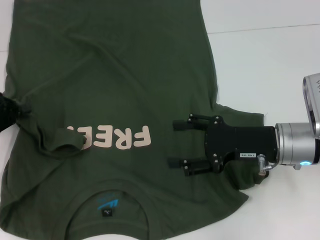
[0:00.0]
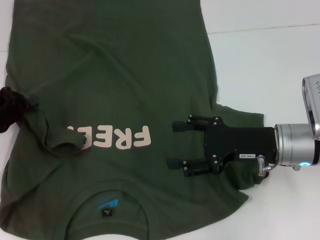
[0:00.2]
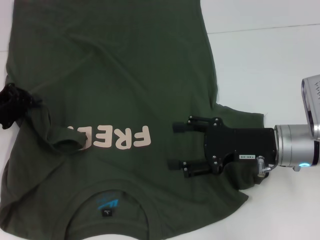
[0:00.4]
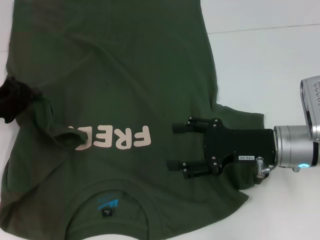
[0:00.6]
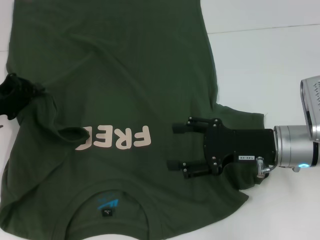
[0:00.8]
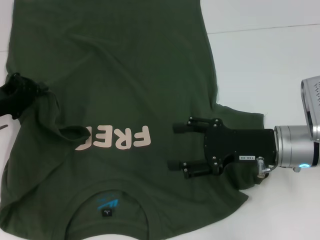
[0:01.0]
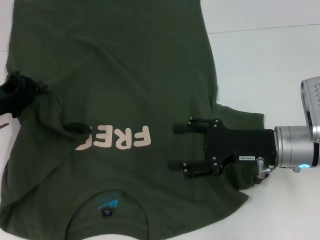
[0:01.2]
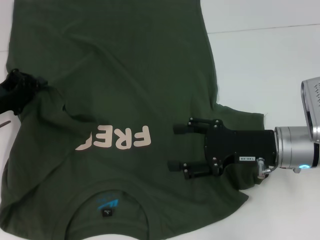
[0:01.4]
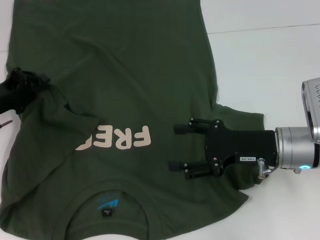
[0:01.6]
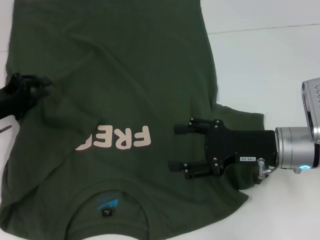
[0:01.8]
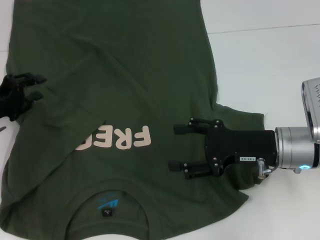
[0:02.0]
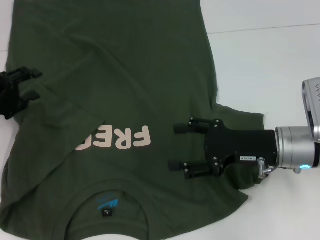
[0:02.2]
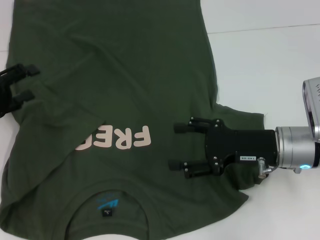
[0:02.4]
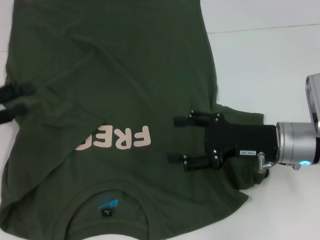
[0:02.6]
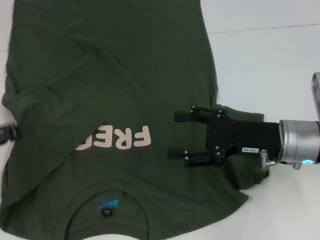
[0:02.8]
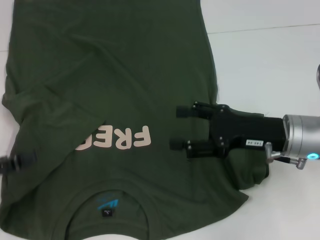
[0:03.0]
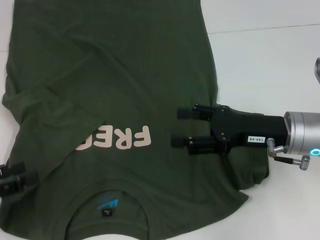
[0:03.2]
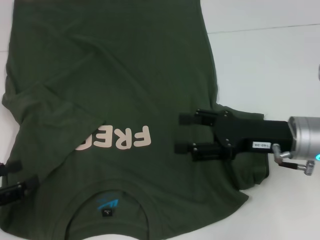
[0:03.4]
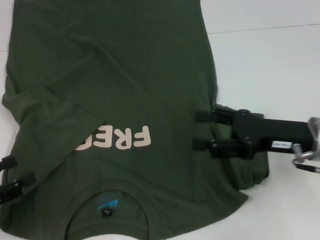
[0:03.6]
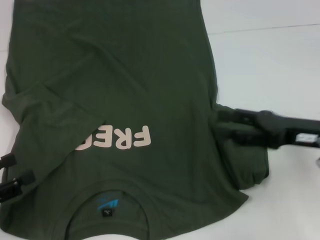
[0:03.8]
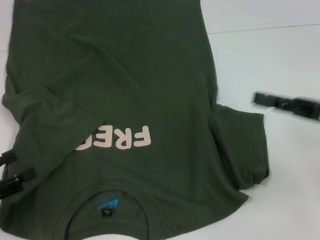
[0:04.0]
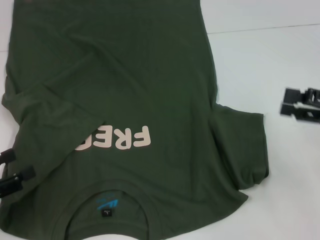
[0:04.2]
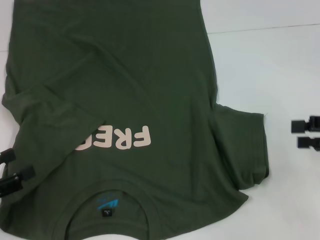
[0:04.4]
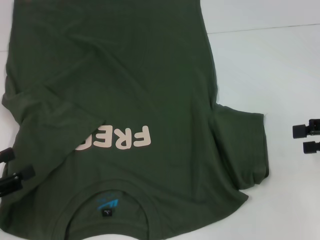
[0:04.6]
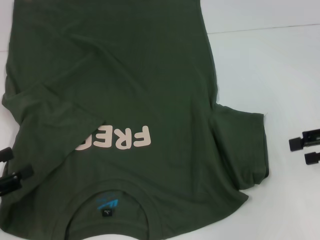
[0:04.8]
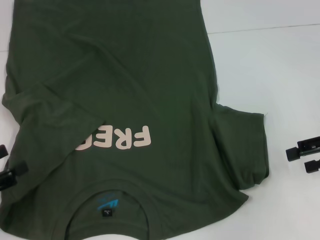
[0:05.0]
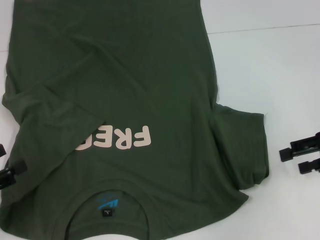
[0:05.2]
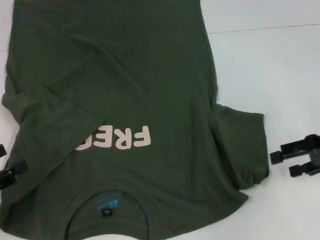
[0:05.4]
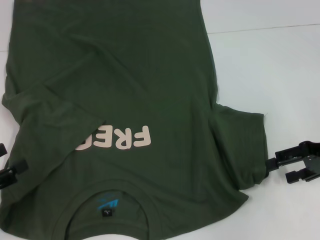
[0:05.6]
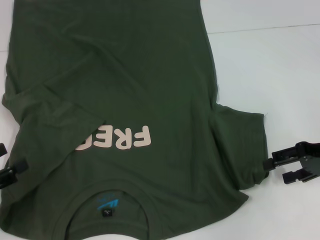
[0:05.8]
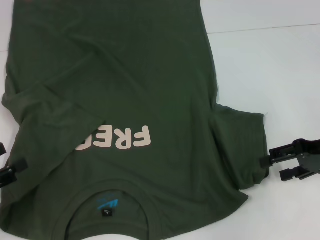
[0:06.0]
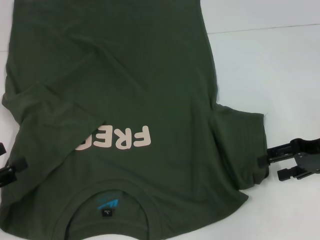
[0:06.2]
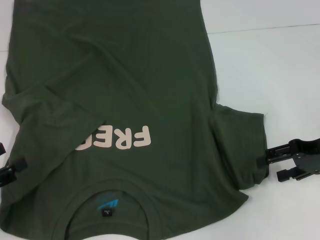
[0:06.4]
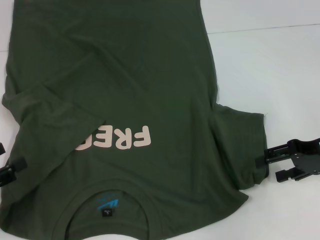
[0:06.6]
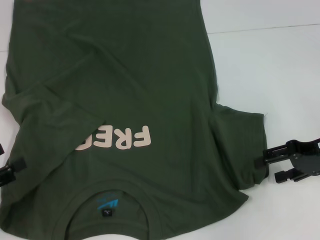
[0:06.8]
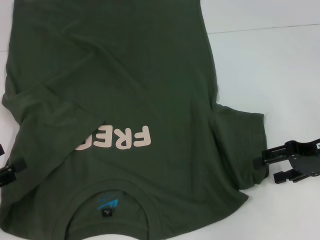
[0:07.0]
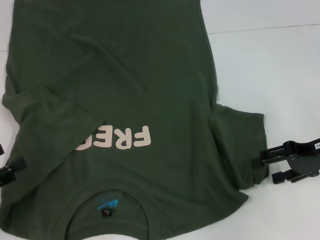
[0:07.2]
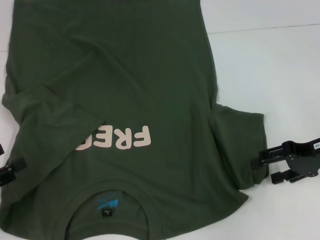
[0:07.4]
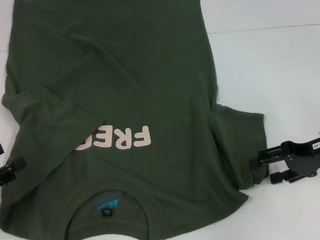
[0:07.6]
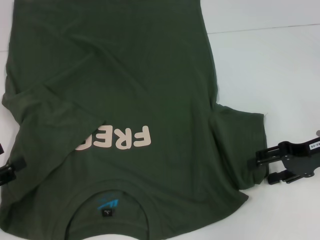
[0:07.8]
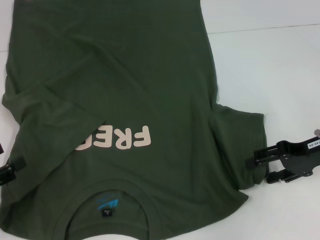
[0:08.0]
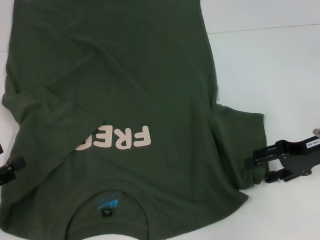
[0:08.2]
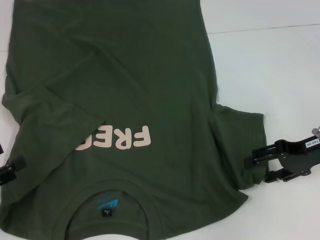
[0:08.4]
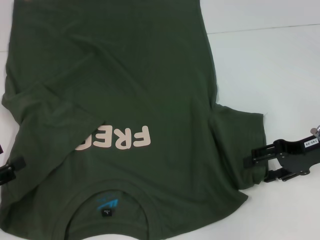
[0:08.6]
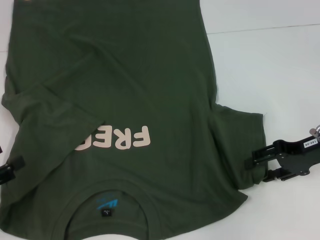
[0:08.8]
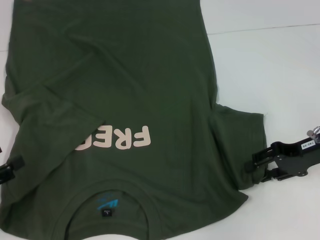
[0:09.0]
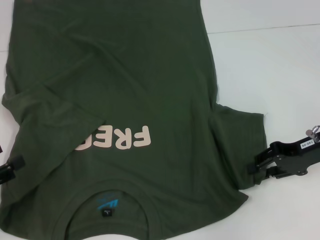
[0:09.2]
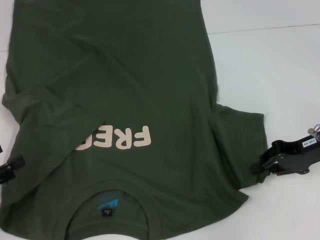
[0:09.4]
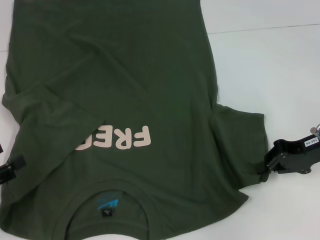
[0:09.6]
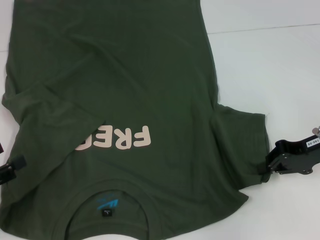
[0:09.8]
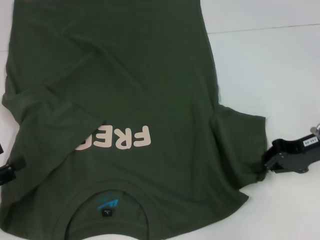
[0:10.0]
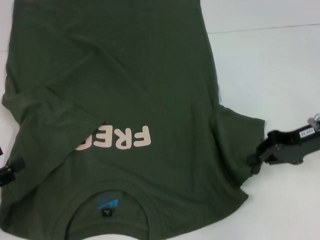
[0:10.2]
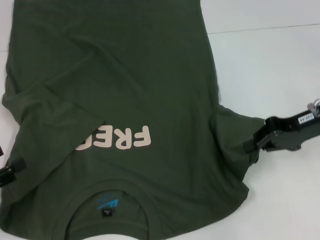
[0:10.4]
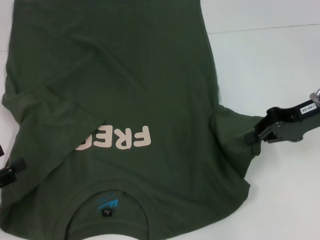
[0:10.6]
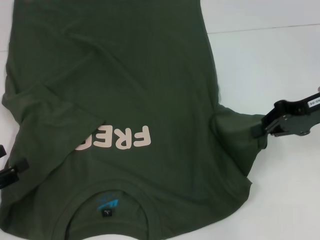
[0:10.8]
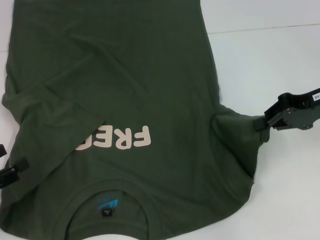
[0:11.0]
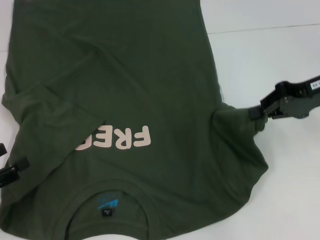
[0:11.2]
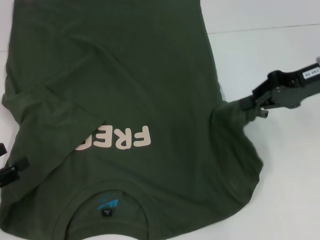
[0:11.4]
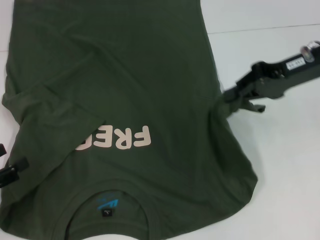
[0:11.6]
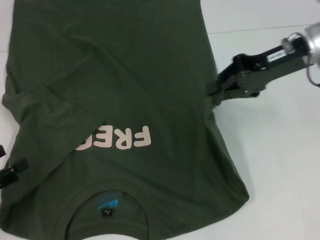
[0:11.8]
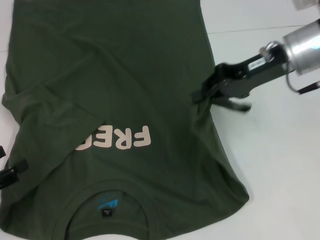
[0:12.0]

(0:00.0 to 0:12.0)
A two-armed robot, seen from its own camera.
0:00.0 - 0:01.6: The grippers move only a little.
0:01.6 - 0:03.0: The left gripper goes about 15 cm backward and to the left, and opens.
0:03.0 - 0:04.4: The right gripper travels to the right by approximately 15 cm.
0:04.4 - 0:06.0: The right gripper ends up about 5 cm from where it was.
0:06.0 - 0:09.0: The grippers move only a little.
0:09.0 - 0:10.4: The right gripper closes its fingers.
0:10.4 - 0:12.0: The right gripper moves to the left, upward and forward, some 10 cm.

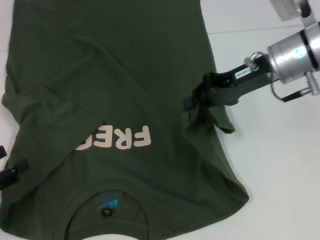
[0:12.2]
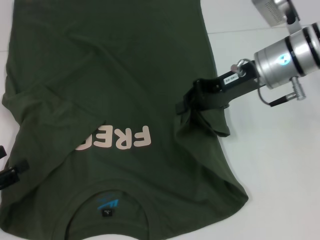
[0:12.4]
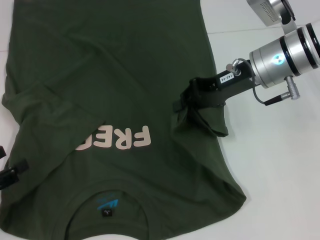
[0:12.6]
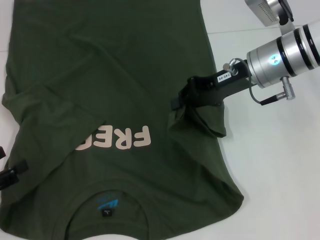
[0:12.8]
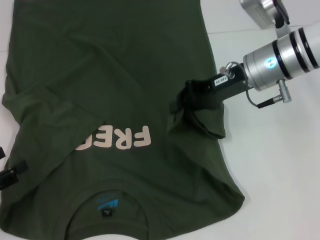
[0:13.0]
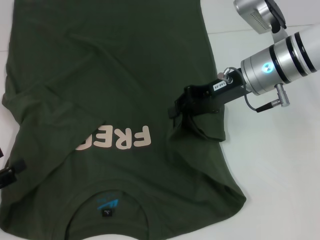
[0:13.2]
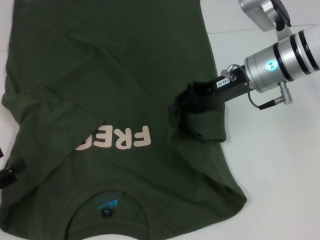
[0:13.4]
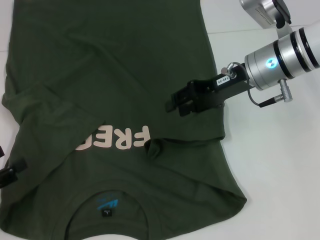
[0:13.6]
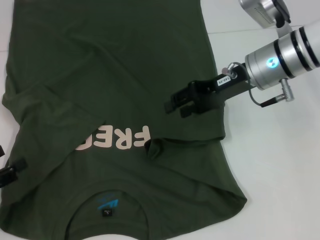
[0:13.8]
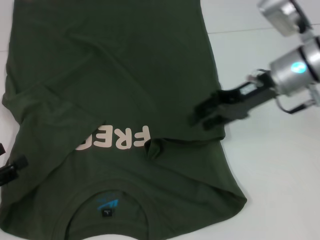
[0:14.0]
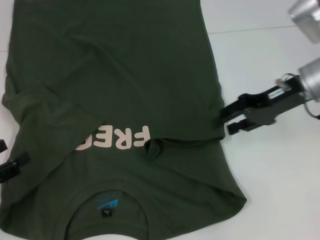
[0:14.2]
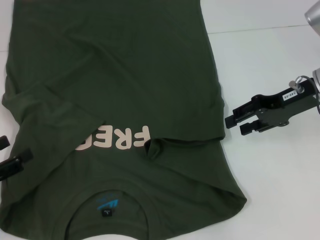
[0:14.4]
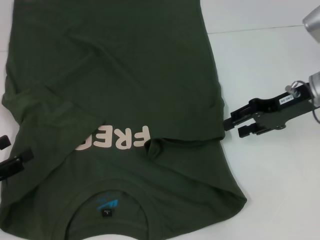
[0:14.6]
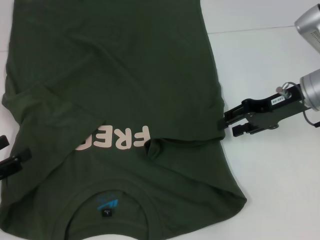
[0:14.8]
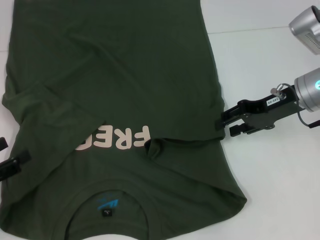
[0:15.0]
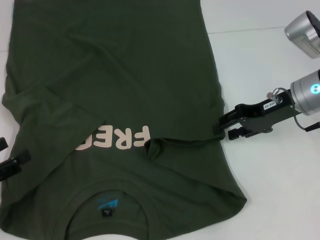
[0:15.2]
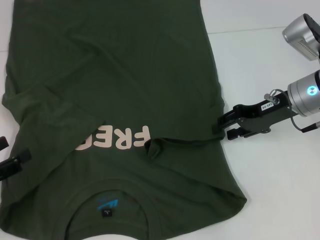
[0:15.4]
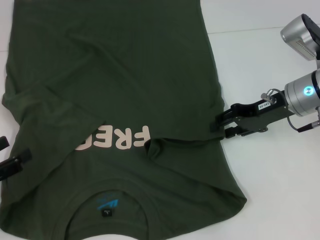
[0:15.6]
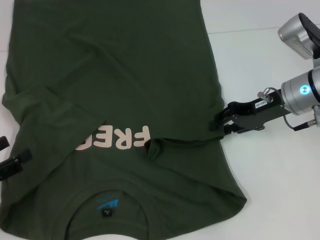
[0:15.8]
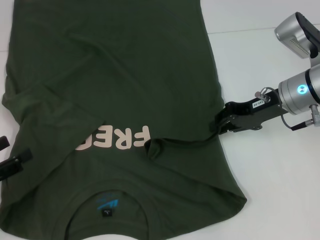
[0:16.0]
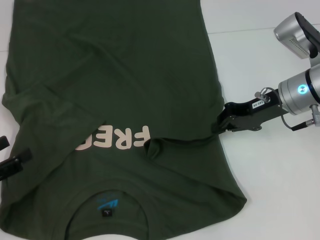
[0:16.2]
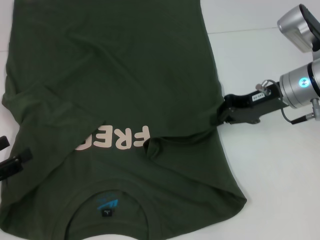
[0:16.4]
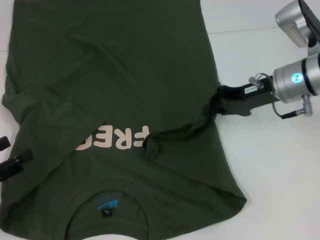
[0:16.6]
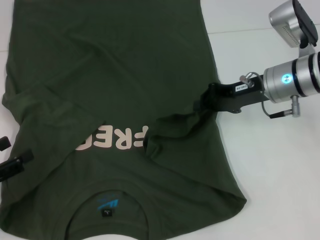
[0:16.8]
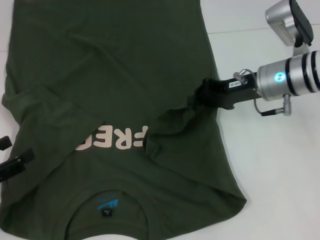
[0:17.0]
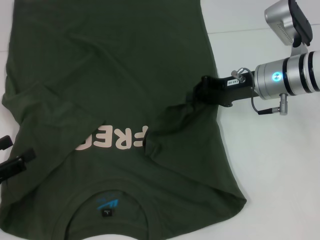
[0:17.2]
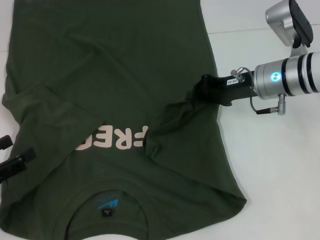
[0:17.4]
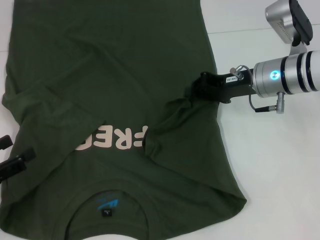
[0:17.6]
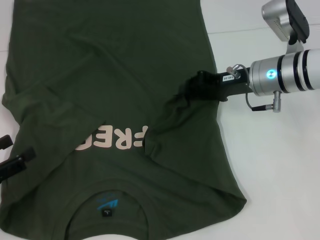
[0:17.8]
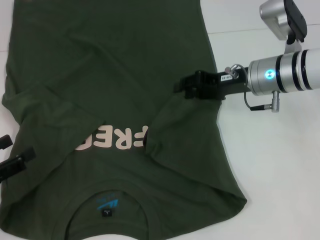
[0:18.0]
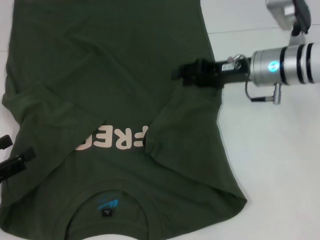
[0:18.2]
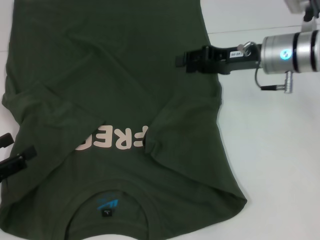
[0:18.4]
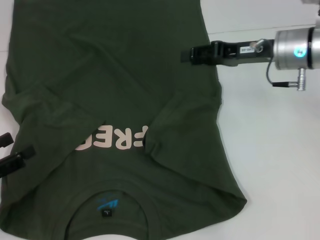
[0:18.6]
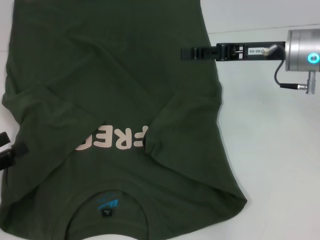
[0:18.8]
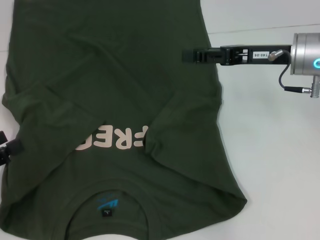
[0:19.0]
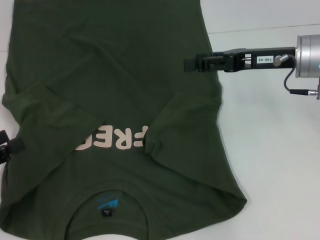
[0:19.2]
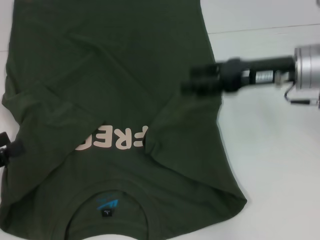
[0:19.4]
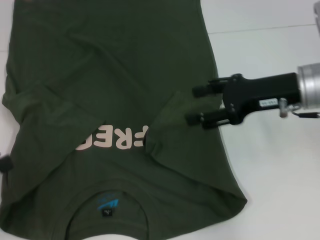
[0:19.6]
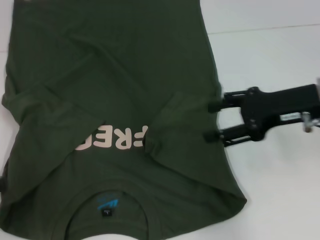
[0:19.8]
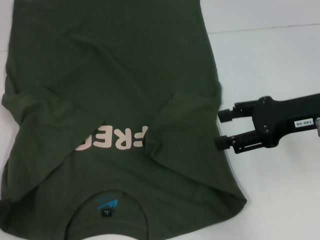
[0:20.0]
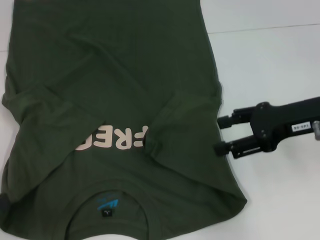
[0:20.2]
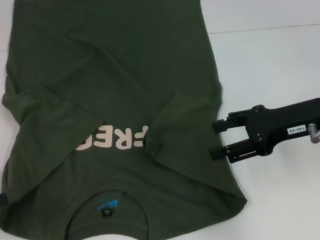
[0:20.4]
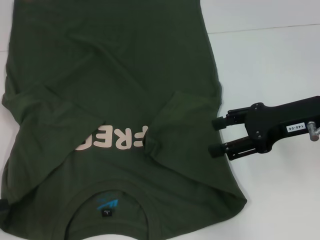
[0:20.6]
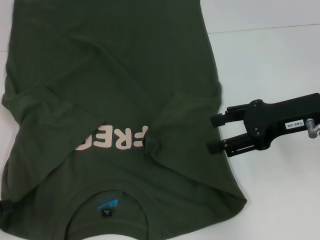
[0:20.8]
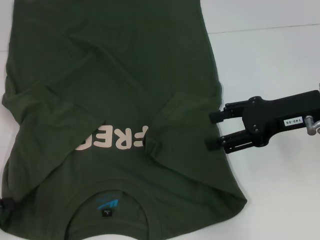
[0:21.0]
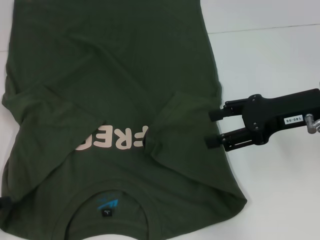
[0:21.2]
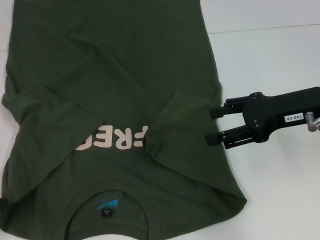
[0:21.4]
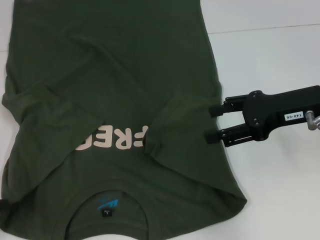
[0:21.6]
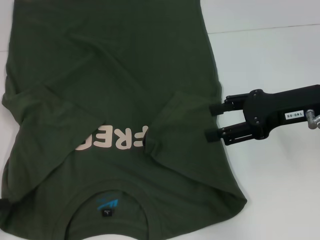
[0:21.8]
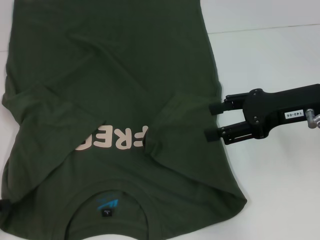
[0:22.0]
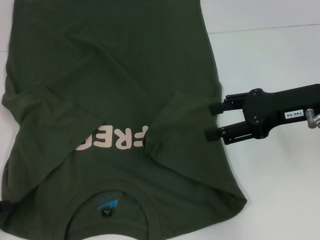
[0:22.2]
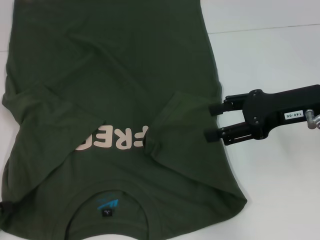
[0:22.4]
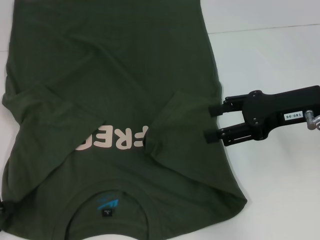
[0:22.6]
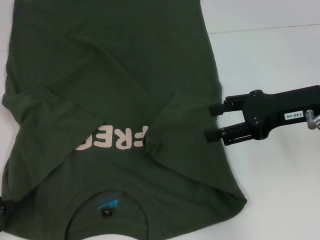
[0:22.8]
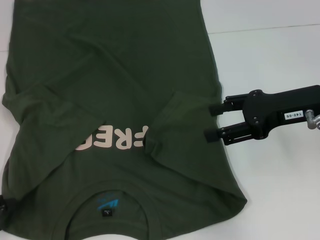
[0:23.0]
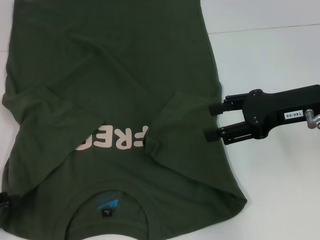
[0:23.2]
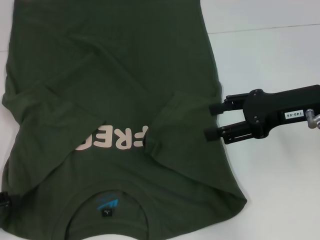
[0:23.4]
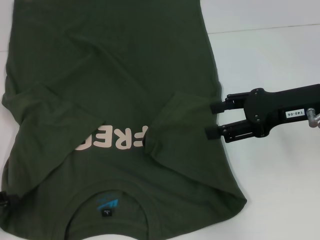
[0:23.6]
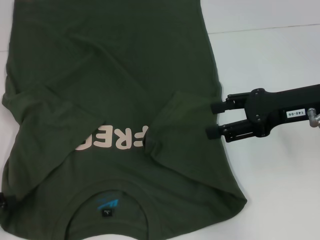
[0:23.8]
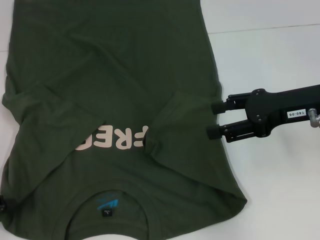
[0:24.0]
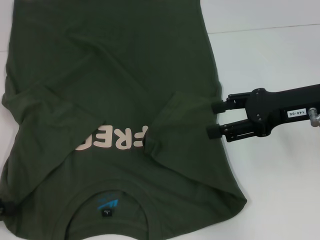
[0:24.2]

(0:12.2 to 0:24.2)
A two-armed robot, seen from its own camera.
Step, 0:12.2 - 0:18.0: Fold the bottom right sleeve with your right hand.
0:12.2 - 0:13.8: The right gripper opens its fingers.
0:13.8 - 0:15.2: The right gripper heads to the right, covering approximately 5 cm.
0:15.2 - 0:16.6: The right gripper closes up.
0:16.6 - 0:18.2: The right gripper opens up.
0:18.2 - 0:19.8: The right gripper travels backward by approximately 10 cm, and opens its fingers; the left gripper moves roughly 5 cm.
0:21.2 - 0:22.6: Neither gripper changes place.
